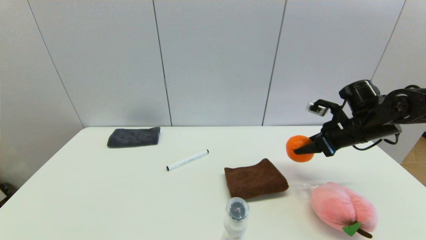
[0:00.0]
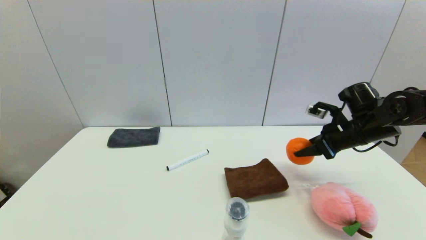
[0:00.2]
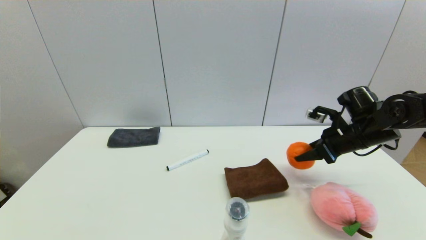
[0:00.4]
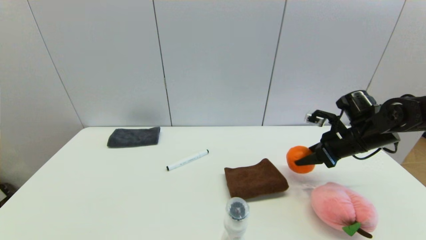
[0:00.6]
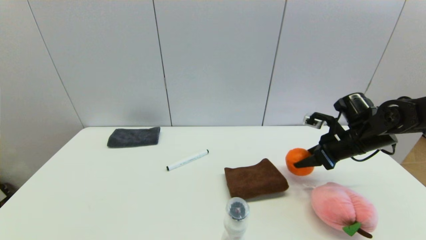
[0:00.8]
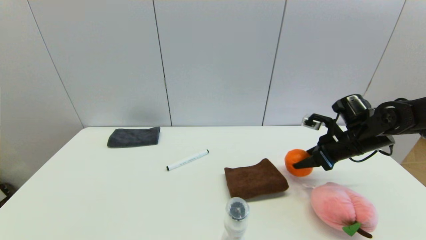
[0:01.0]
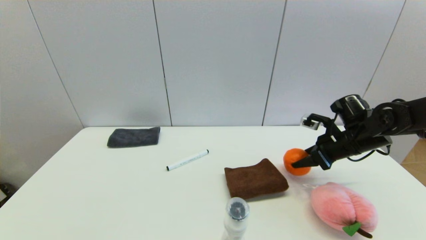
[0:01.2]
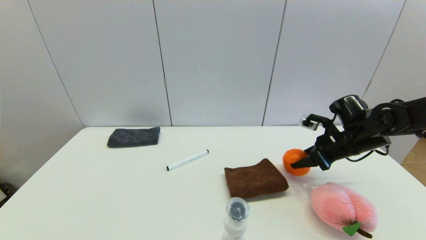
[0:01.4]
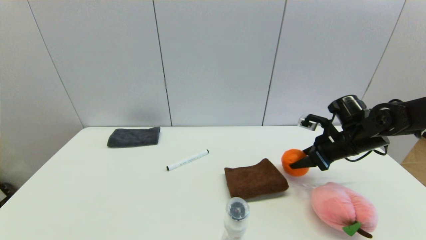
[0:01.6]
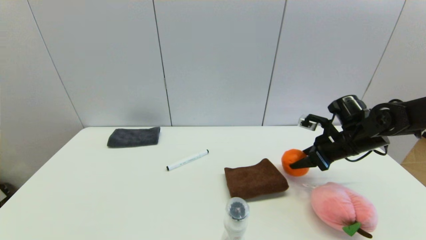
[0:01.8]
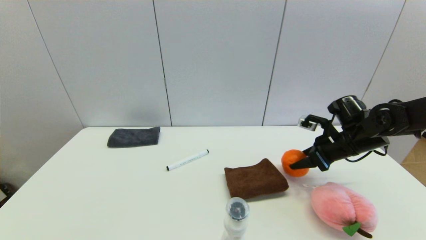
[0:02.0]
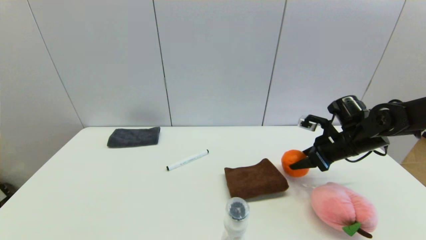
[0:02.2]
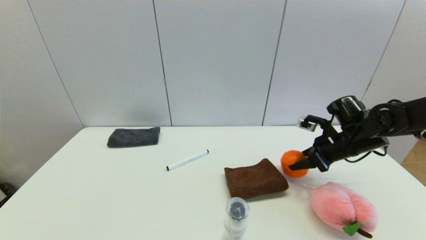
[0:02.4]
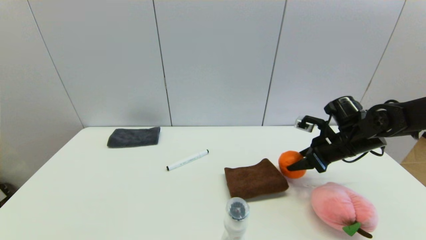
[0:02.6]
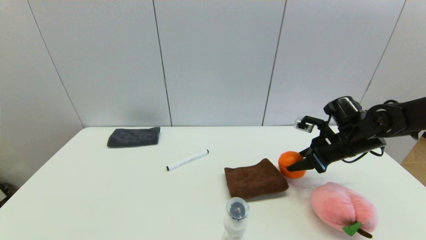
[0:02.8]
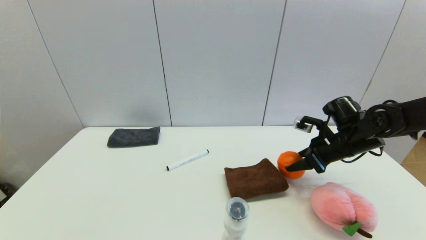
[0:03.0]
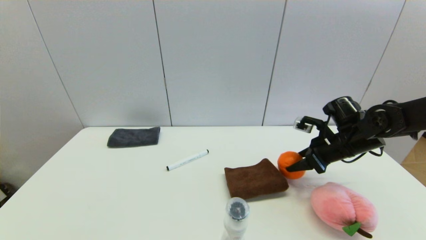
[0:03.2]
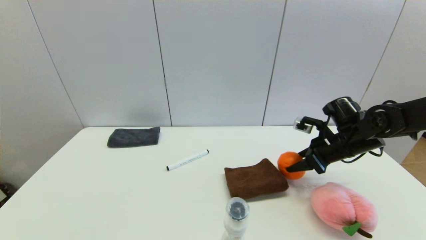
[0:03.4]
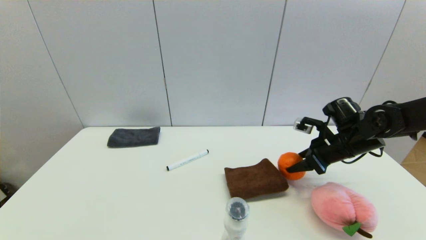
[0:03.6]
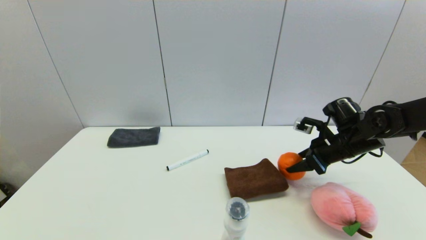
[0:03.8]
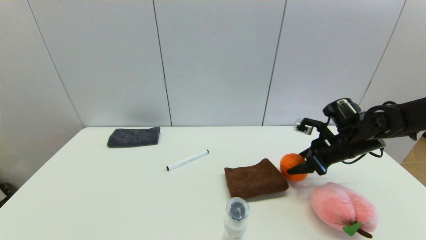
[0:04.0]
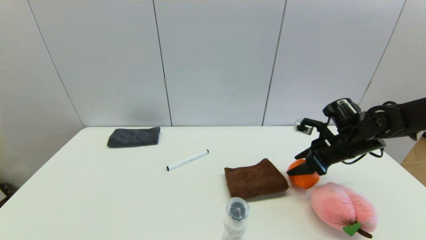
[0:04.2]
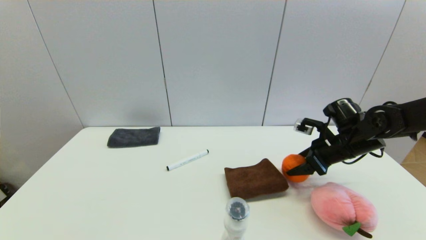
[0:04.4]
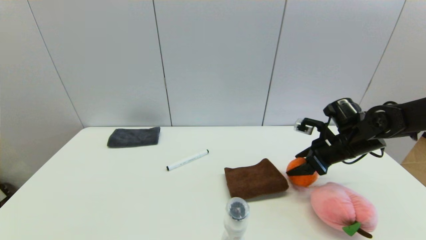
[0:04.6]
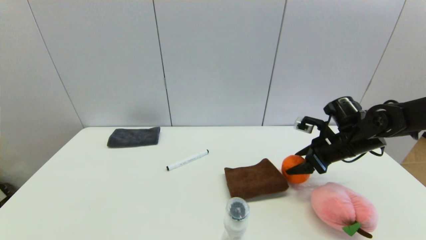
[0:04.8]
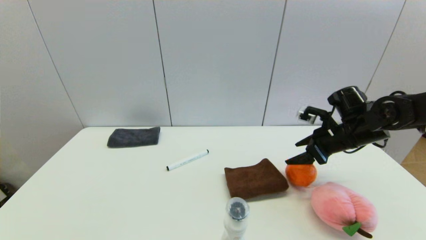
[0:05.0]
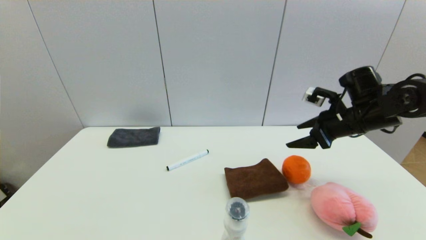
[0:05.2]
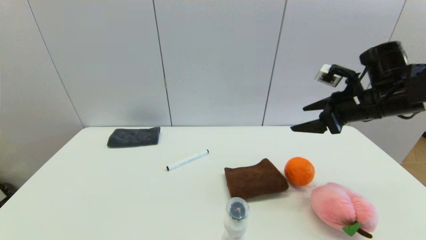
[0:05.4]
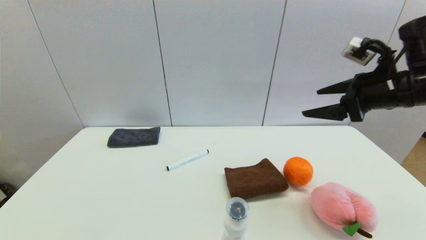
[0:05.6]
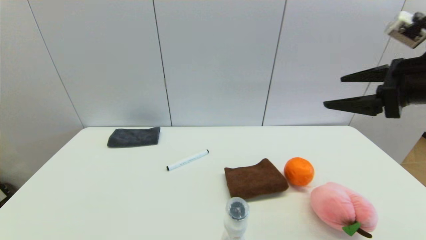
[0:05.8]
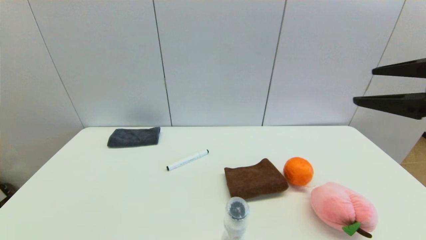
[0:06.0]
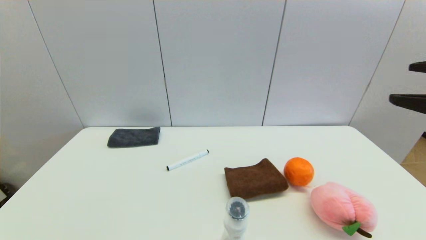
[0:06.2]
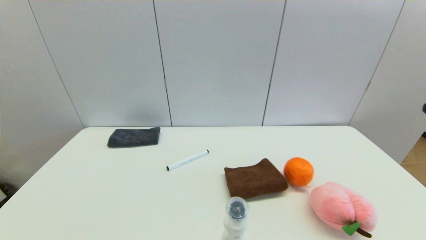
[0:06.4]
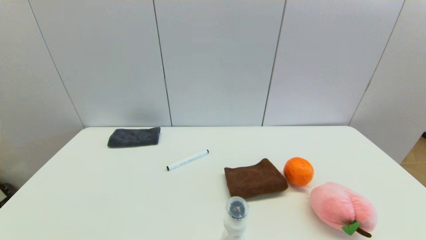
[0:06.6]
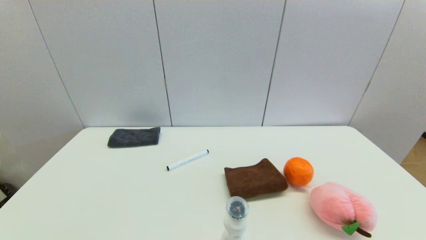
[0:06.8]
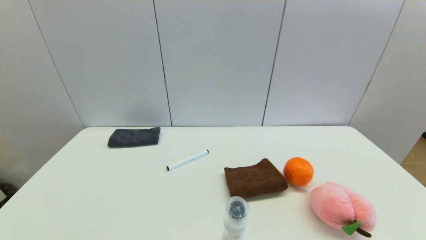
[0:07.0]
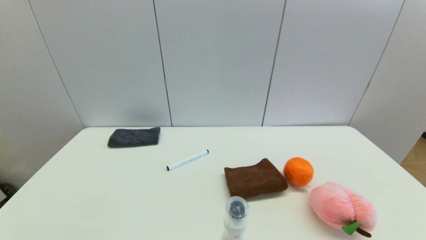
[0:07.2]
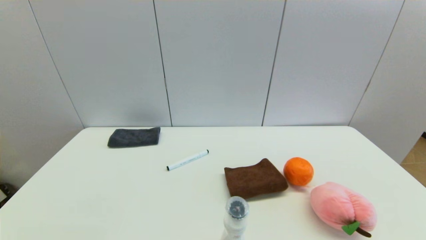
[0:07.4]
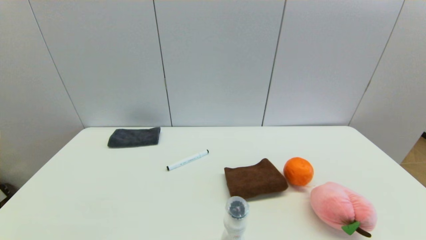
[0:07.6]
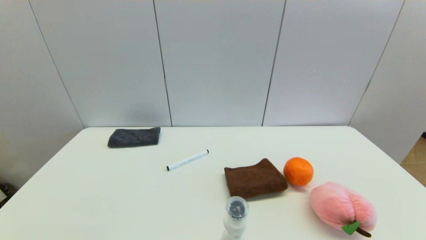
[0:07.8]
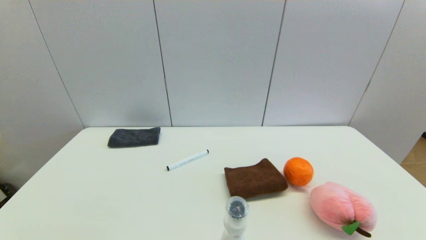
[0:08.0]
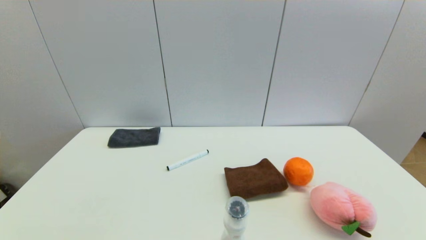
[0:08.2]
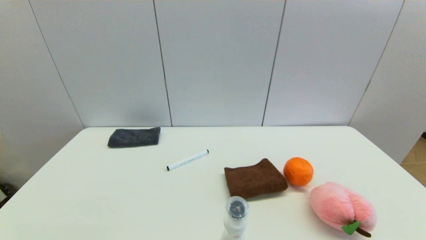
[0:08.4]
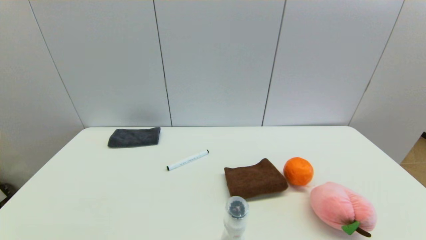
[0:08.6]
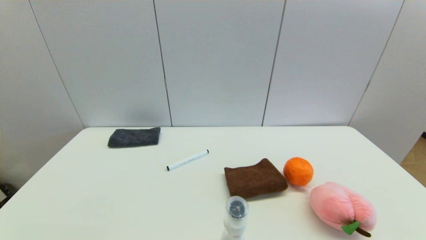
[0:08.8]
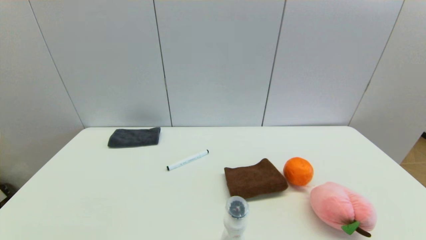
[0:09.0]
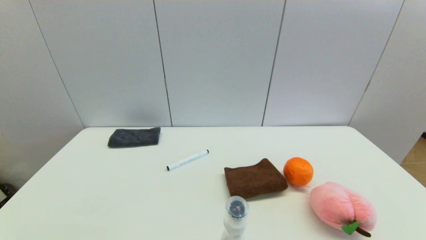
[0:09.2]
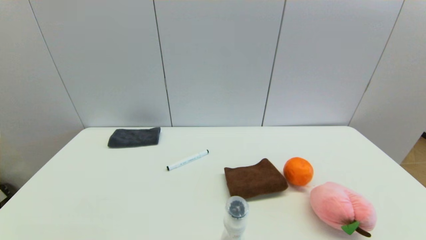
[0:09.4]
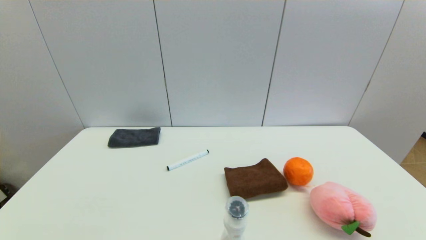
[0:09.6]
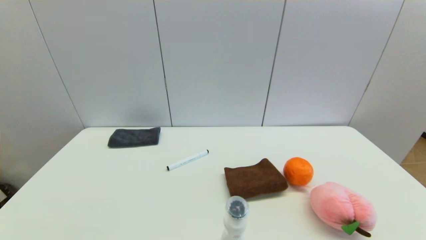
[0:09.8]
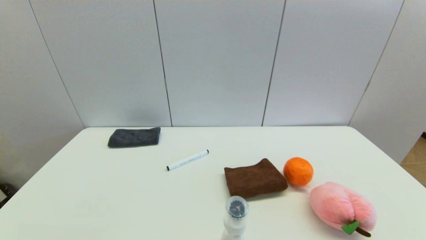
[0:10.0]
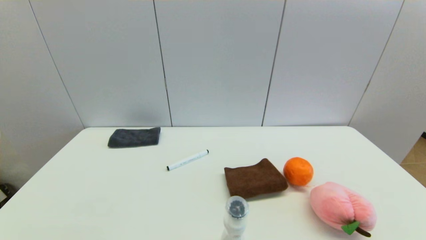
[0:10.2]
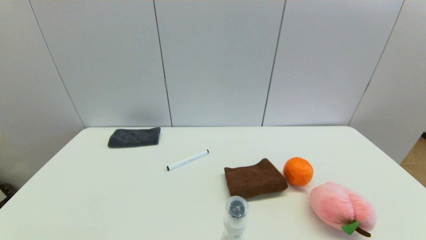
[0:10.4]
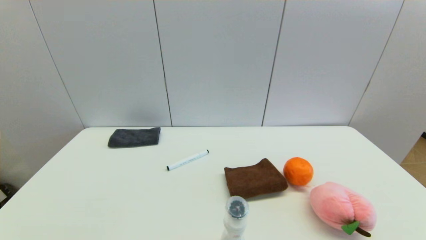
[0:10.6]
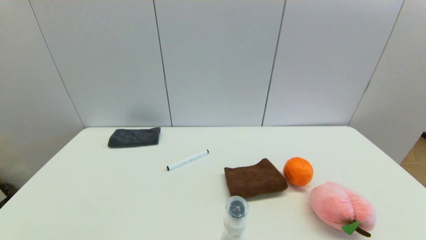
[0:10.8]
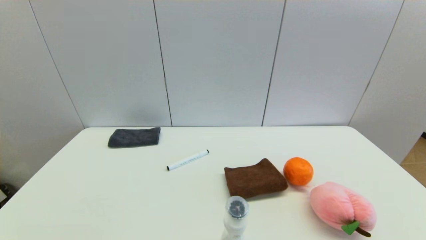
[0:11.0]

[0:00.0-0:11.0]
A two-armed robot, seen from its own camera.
Step, 0:00.0 to 0:04.0: Place the orange on the table with right gripper.
0:00.0 to 0:01.6: The grippers move only a little.
0:01.6 to 0:03.2: Neither gripper changes place.
0:03.2 to 0:04.8: The right gripper opens.
0:04.8 to 0:06.2: The right gripper shifts about 30 cm backward and upward.
0:06.2 to 0:07.8: The right gripper travels downward and backward by some 25 cm.
0:09.4 to 0:11.0: Both grippers stay about where they are.
